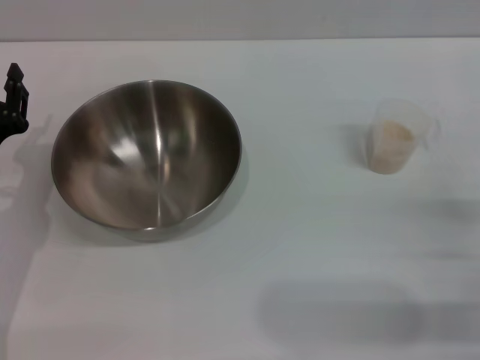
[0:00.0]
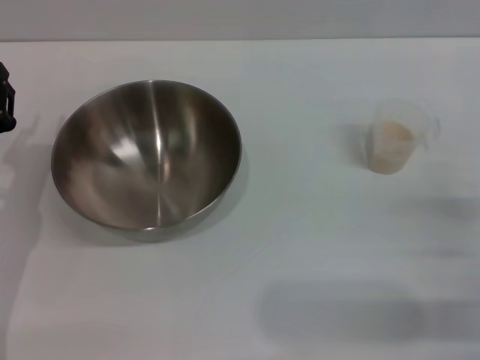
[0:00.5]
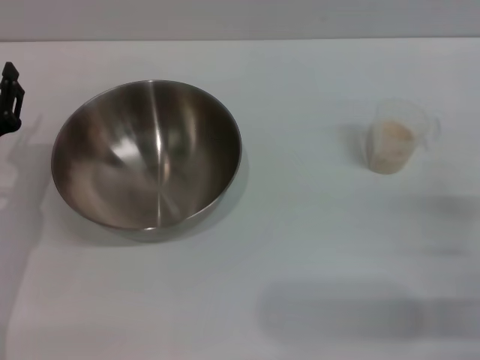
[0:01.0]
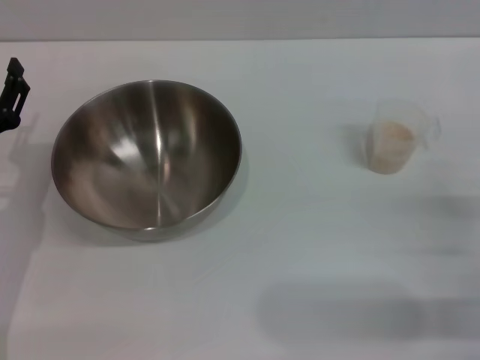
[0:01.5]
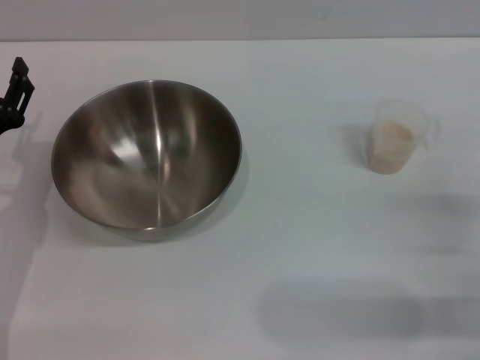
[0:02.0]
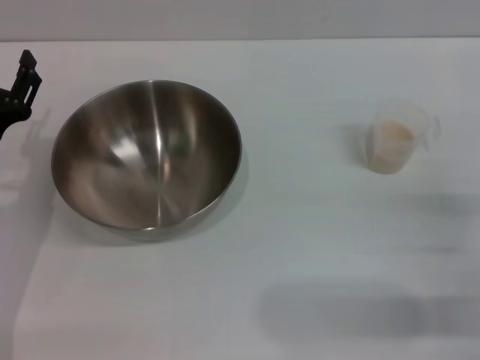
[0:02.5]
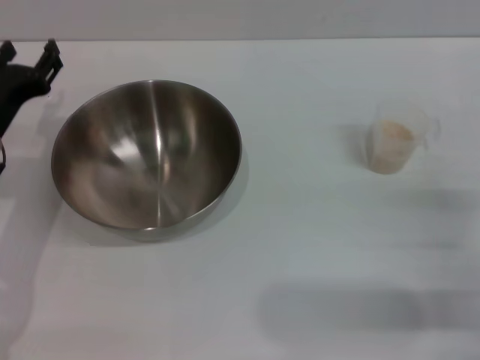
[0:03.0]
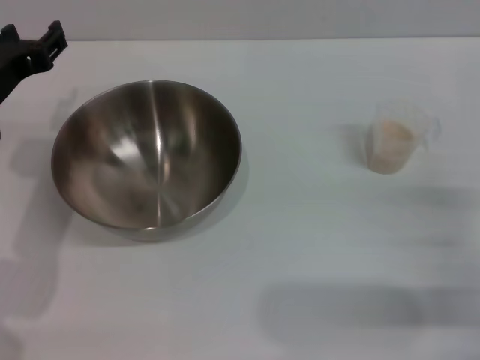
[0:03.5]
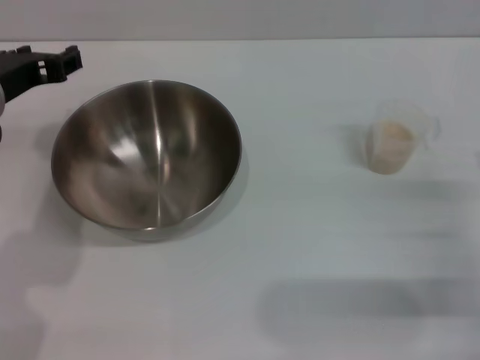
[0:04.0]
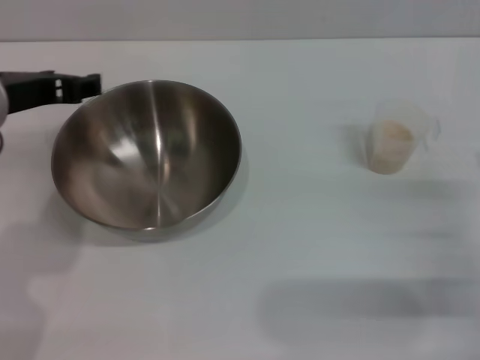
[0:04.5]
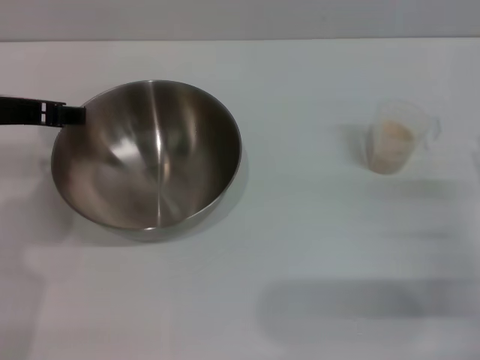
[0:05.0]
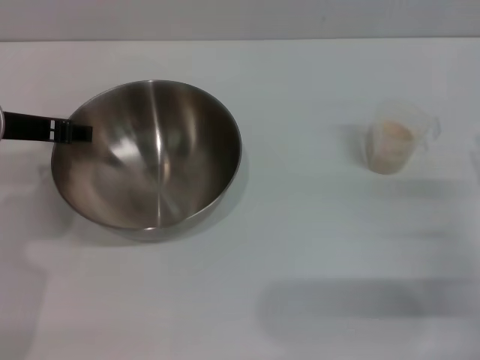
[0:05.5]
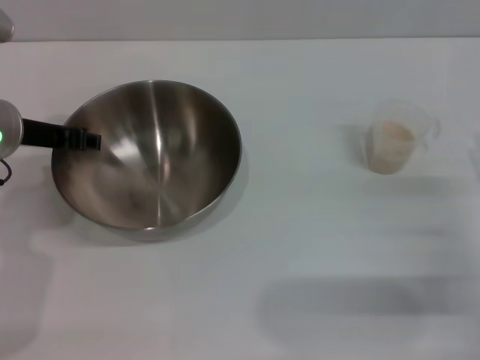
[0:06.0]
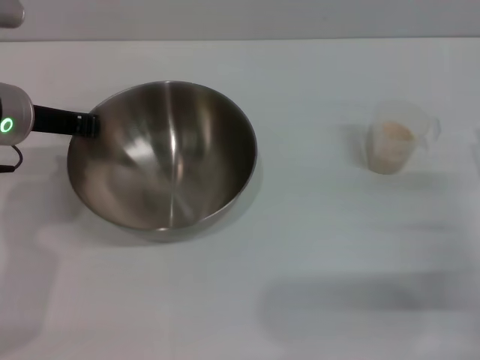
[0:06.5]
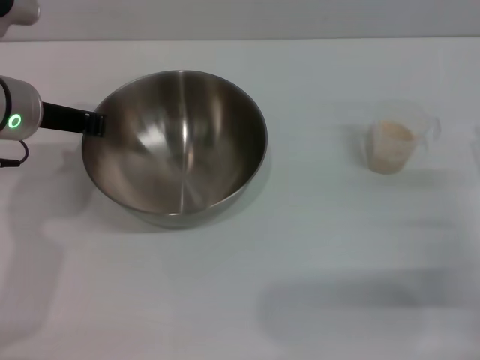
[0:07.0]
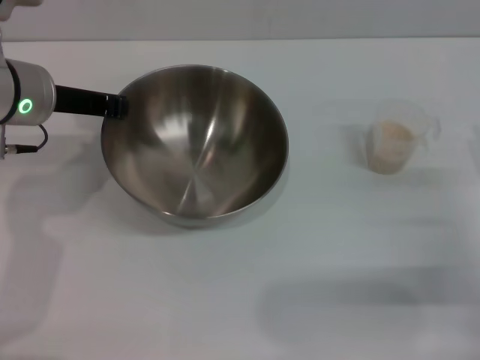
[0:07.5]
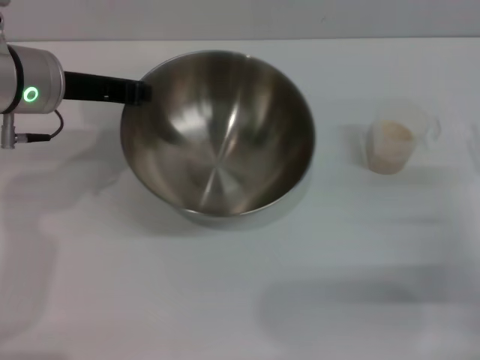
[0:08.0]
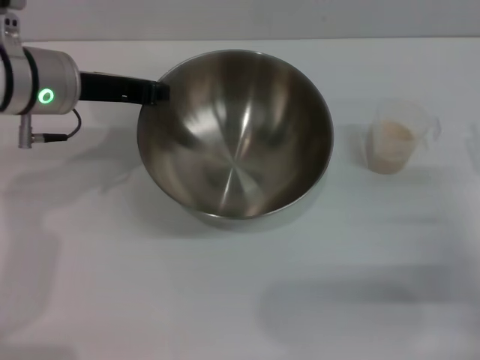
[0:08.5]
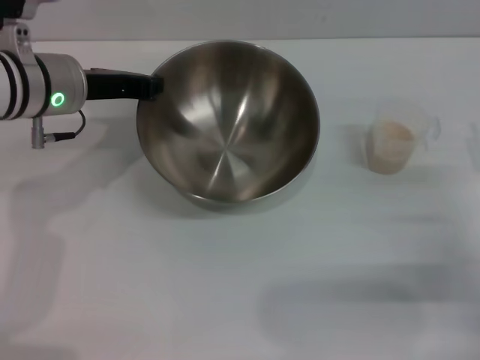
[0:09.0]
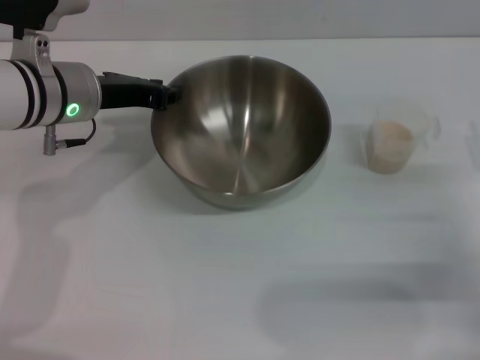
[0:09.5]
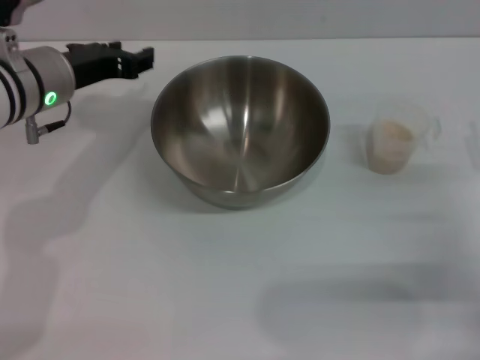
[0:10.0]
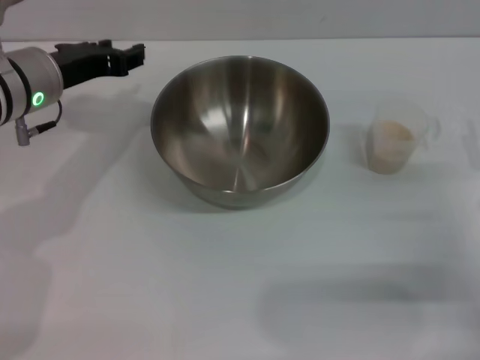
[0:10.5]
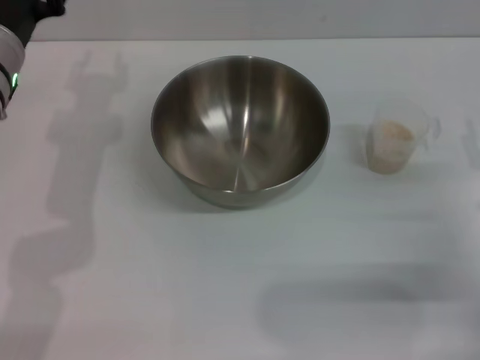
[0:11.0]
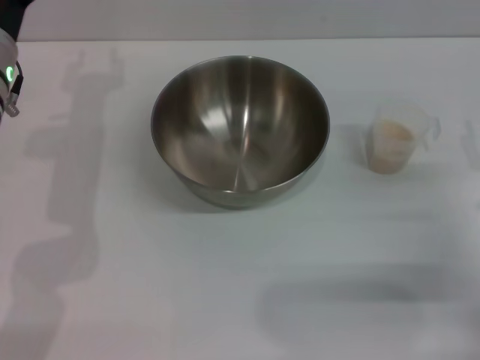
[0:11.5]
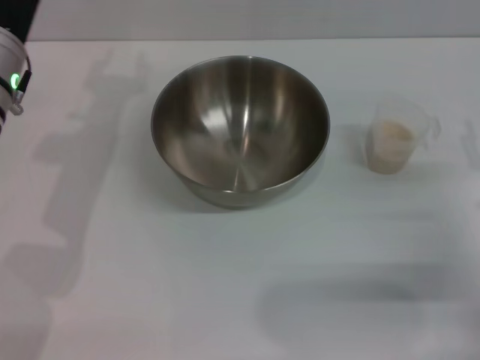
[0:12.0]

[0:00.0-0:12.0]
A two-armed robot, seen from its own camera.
Task of the whole recording: Place the bowl in the middle of the table with one hand and pour the rice from the grain cup into it with the other hand.
Step, 0:00.0 to 0:08.0: Pick up the bowl with the left gripper.
Step, 0:08.5 to 0:10.0: Place the bowl in the center of view with the left gripper.
0:02.0 to 0:04.0: The left gripper moves upward and to the right, about 15 cm.
0:06.0 to 0:08.0: The left gripper closes its fingers.
0:08.0 to 0:10.0: The left gripper opens.

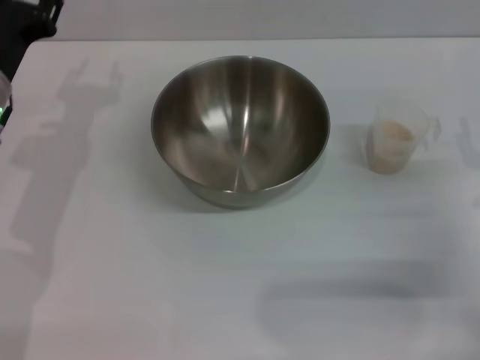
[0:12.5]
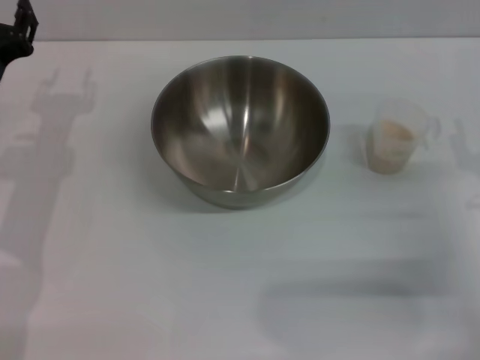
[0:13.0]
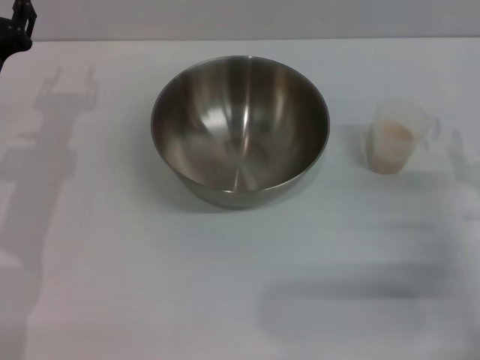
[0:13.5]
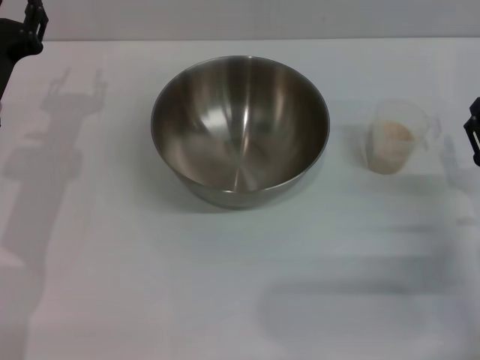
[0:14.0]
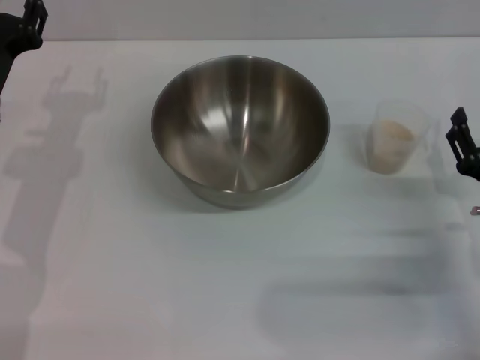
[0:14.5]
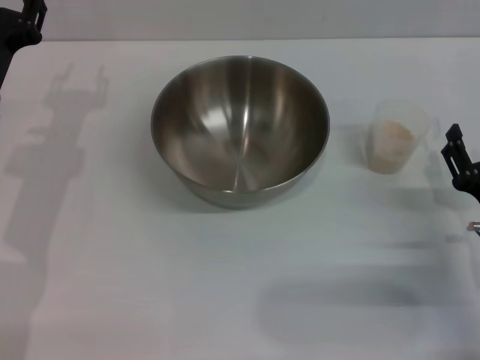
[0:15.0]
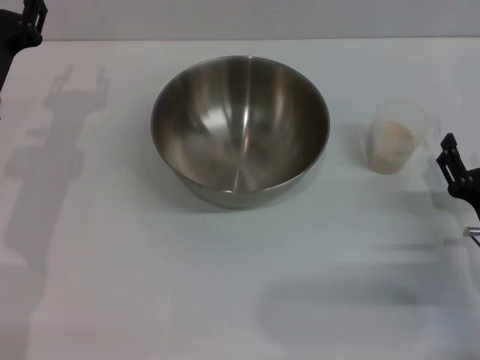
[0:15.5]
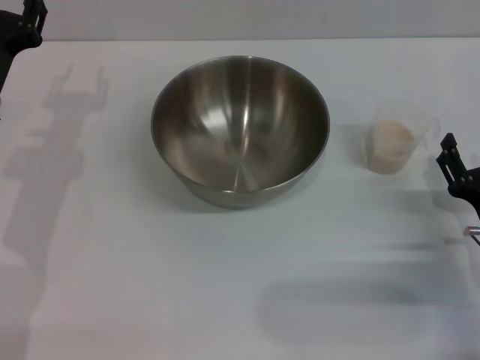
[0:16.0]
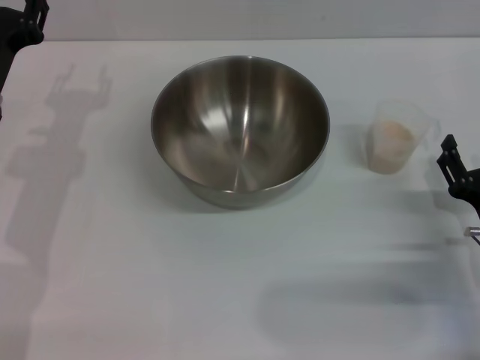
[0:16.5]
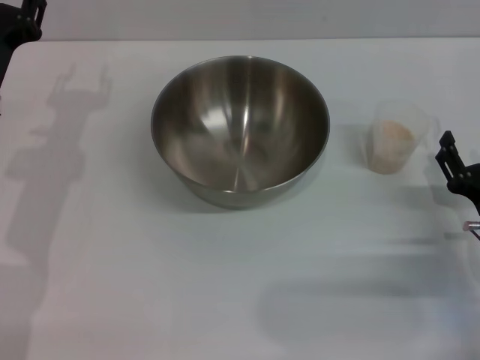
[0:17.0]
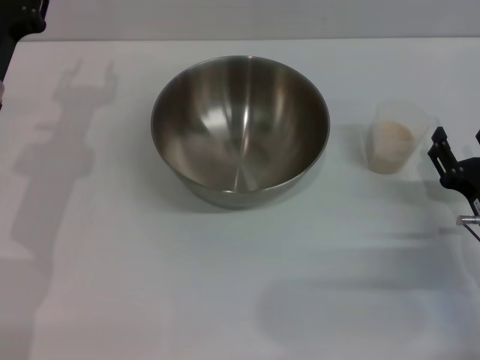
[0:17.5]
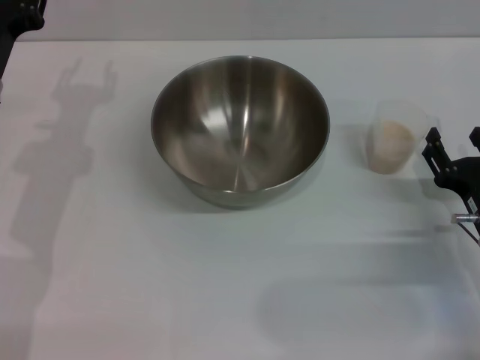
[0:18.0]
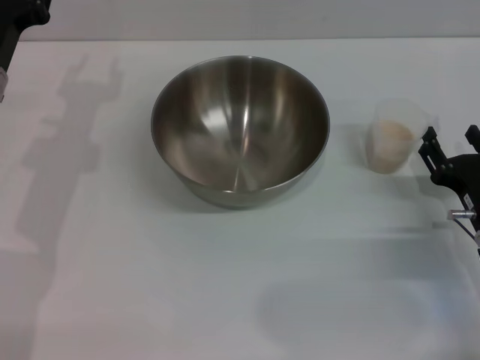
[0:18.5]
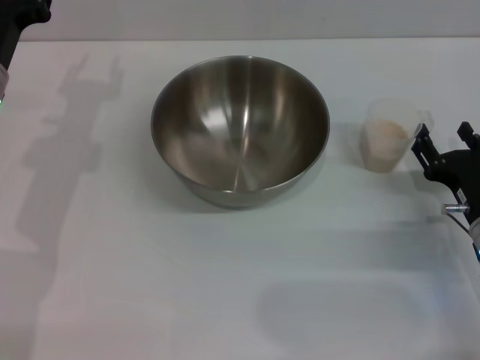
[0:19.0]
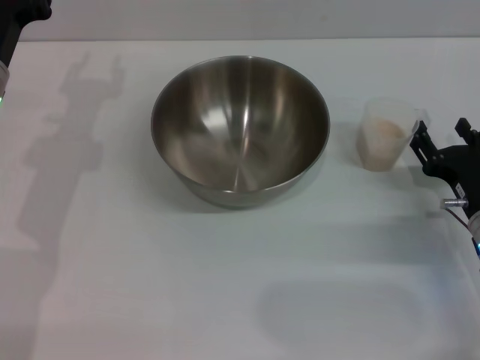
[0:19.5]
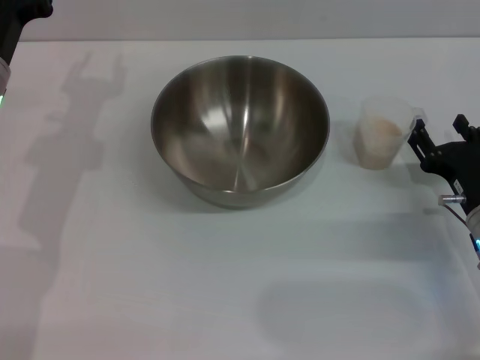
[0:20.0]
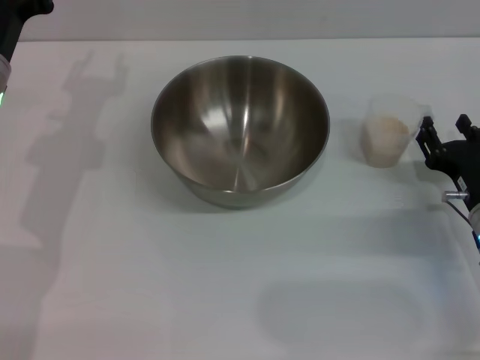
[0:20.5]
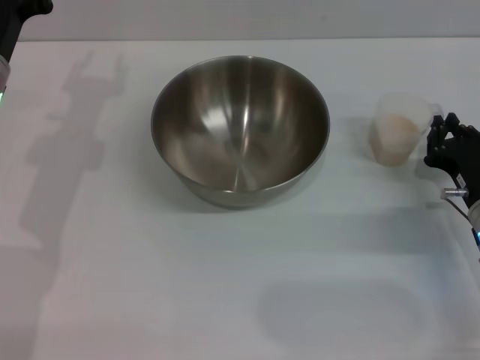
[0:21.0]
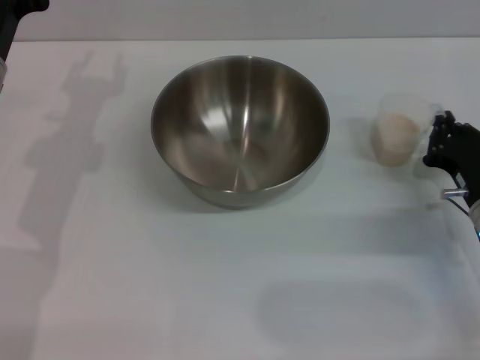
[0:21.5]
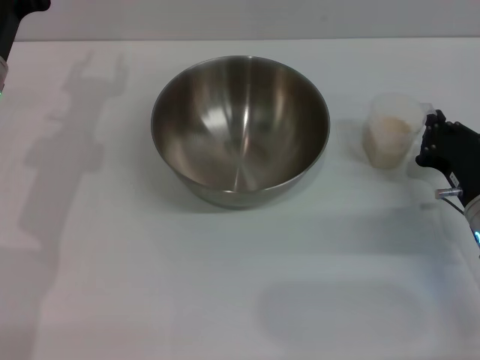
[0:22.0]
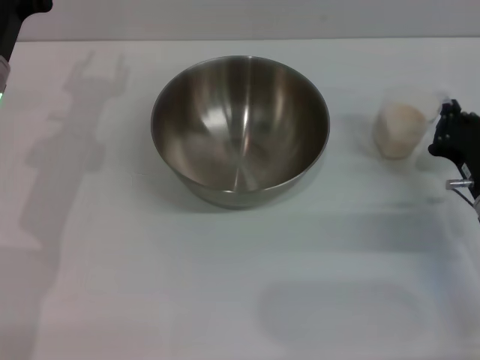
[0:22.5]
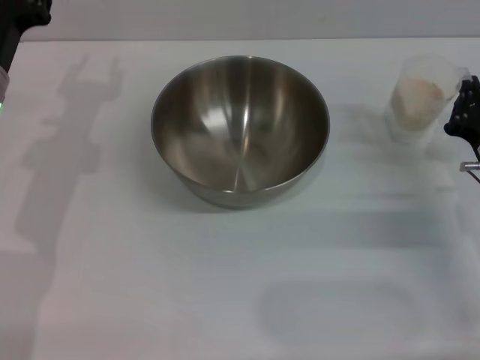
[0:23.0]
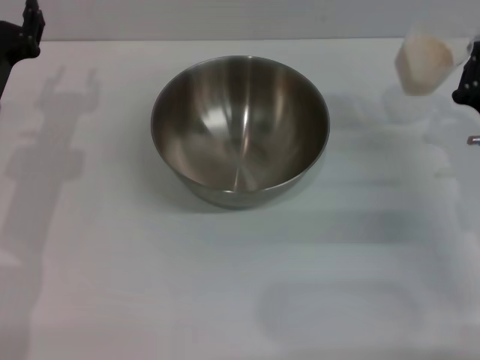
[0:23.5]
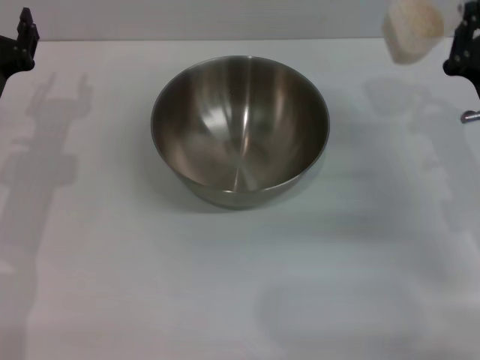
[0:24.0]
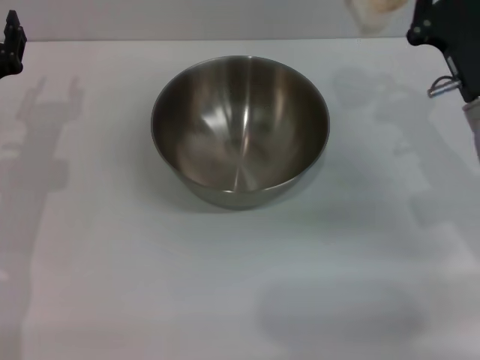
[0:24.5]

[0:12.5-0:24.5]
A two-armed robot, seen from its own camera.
Task of the whole recording: Place the bowl in the middle of the table with one hand and pour the rice from the grain cup into it with the other hand.
Step, 0:12.5 to 0:23.0: Pick up the cup with rice in it with the right gripper.
0:12.5 to 0:14.5: There are only small adjustments of the grippers.
0:14.5 to 0:20.5: There are only small adjustments of the grippers.
0:20.5 to 0:22.5: The right gripper closes.
0:22.5 to 0:24.5: The right gripper moves upward, about 10 cm; the left gripper moves roughly 5 cm.

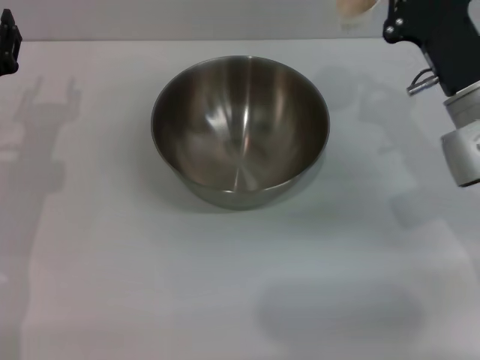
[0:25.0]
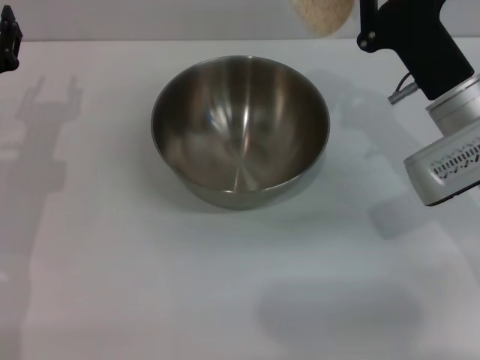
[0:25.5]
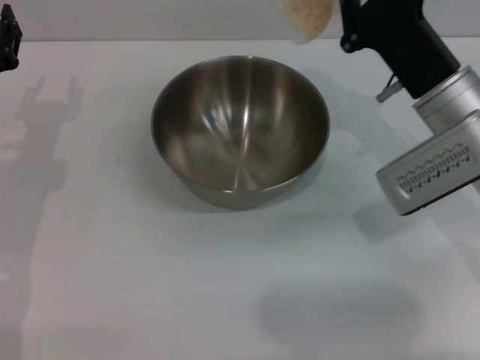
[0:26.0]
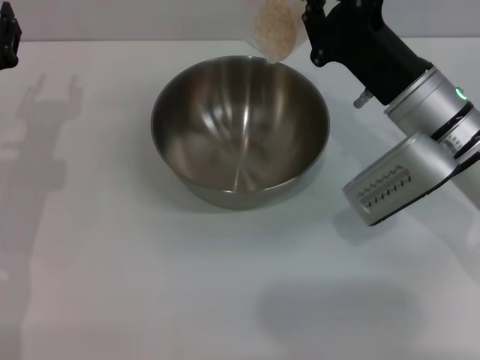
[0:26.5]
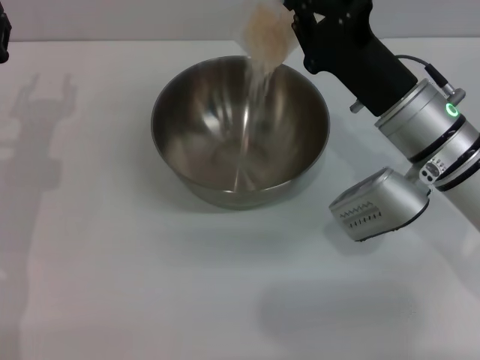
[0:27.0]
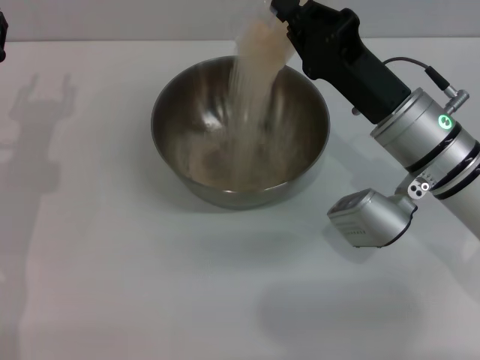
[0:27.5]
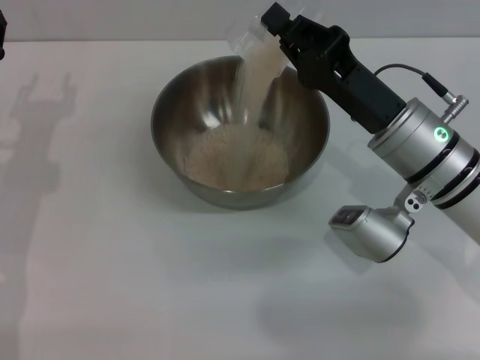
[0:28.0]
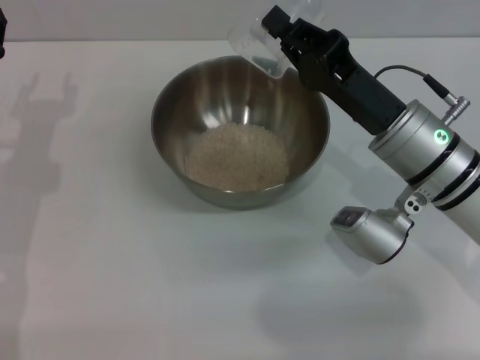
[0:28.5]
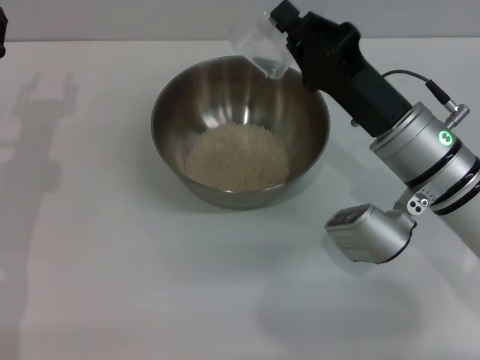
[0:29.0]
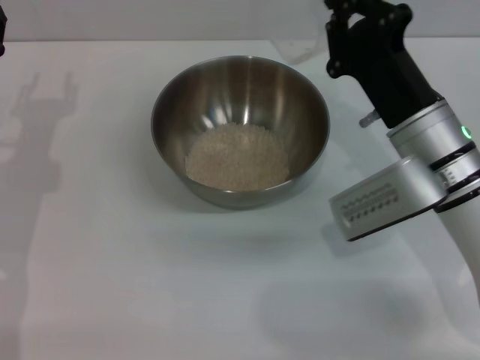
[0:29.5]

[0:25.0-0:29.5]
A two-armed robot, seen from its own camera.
Task of the whole recording: Place the bowl in the middle of the table with one hand and pour the rice from the grain cup into it with the other hand.
Step, 0:25.0 to 0:28.5: Pour the rice from the cup into the bowl with the right gripper.
0:25.0 to 0:27.0: The right gripper travels to the left by some 5 cm.
